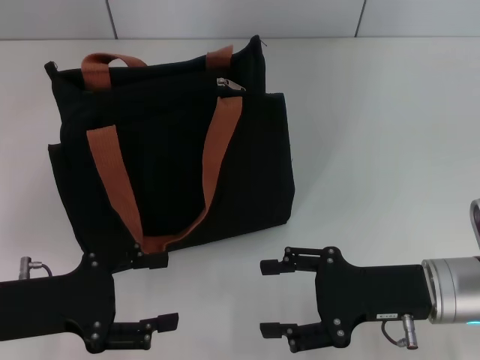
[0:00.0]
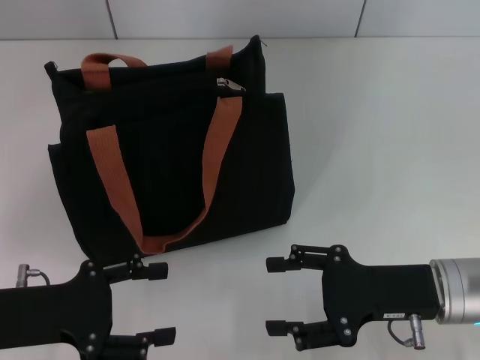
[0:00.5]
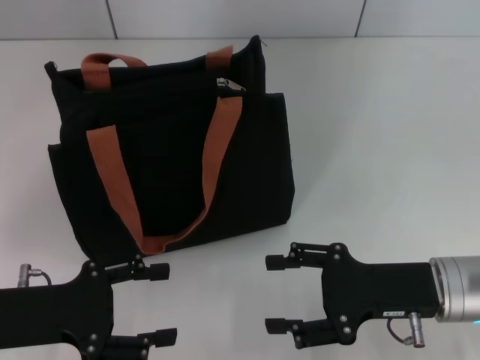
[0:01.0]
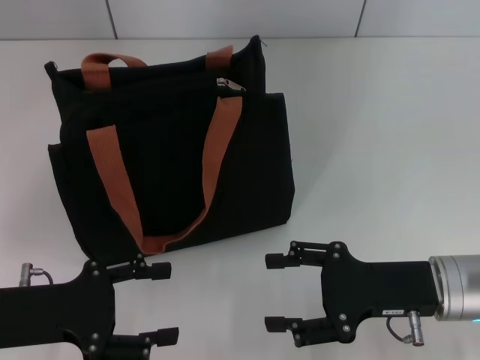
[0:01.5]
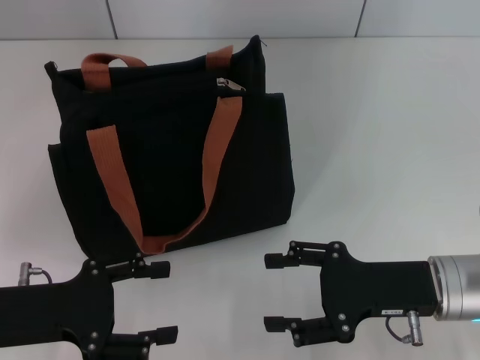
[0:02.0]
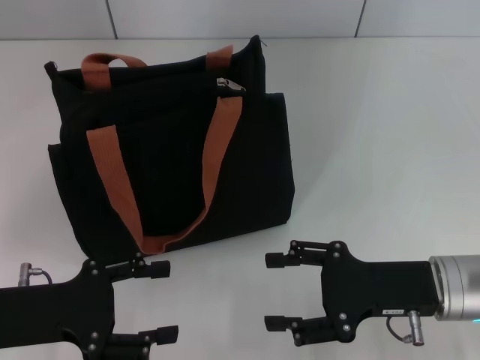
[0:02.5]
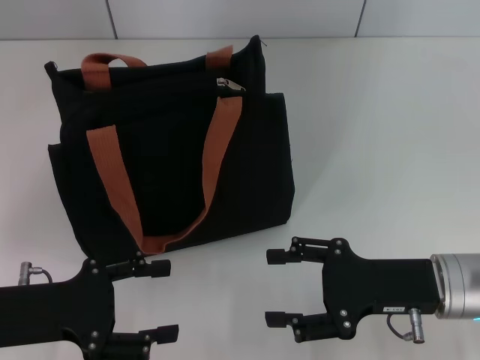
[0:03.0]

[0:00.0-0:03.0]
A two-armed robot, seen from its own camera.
0:00.0 to 0:03.0: The two grippers keep their place.
